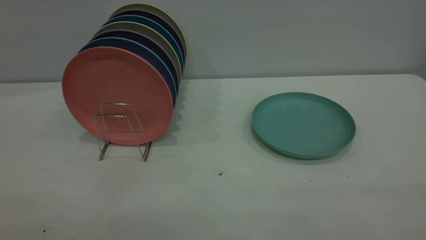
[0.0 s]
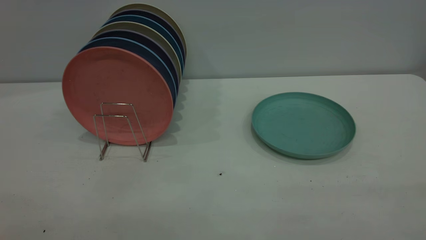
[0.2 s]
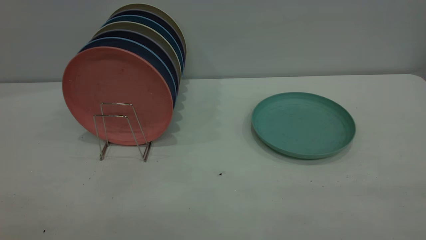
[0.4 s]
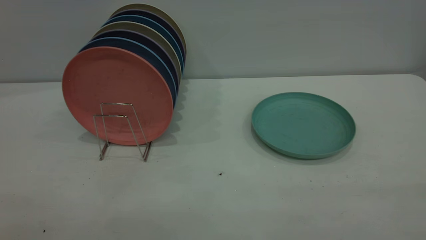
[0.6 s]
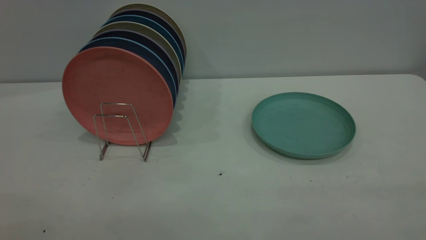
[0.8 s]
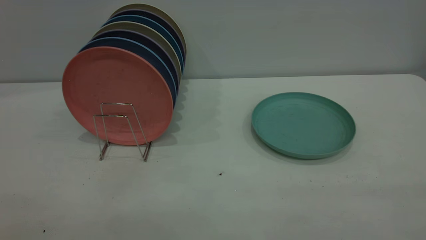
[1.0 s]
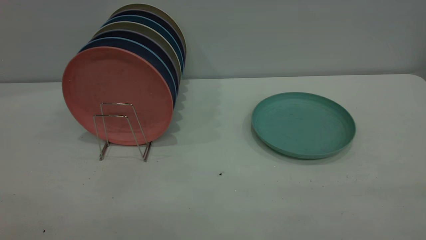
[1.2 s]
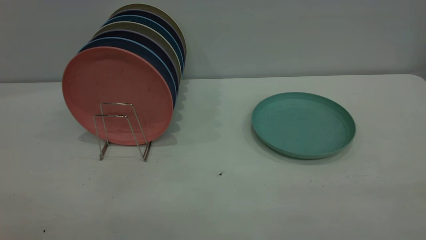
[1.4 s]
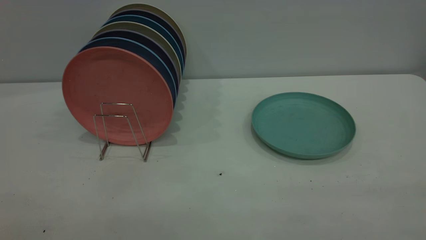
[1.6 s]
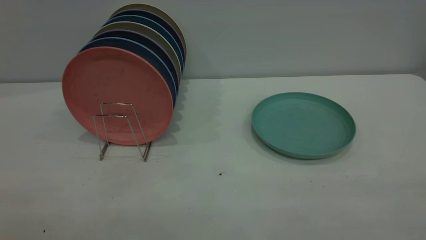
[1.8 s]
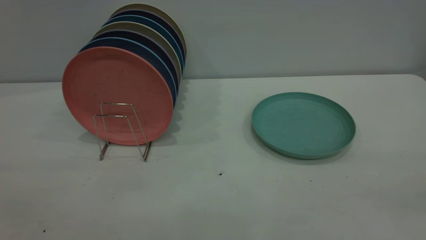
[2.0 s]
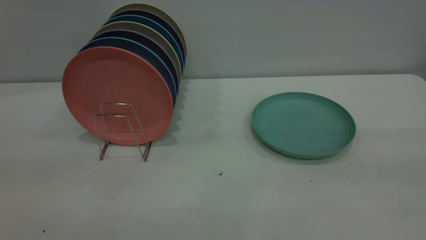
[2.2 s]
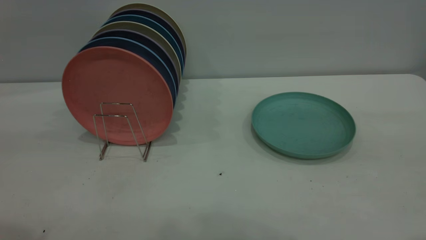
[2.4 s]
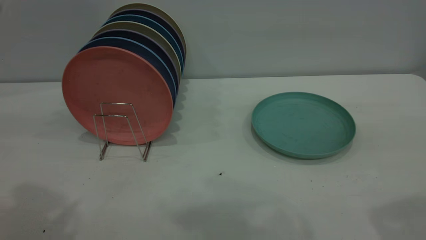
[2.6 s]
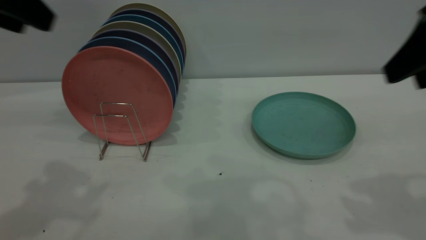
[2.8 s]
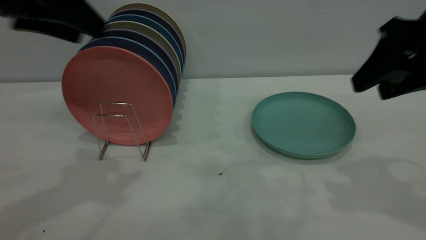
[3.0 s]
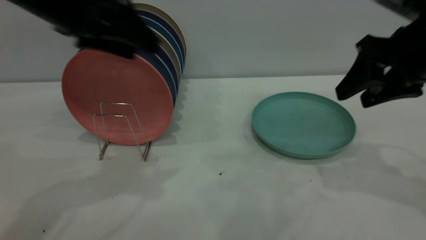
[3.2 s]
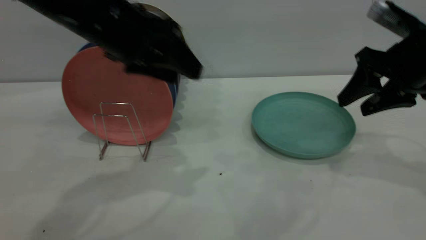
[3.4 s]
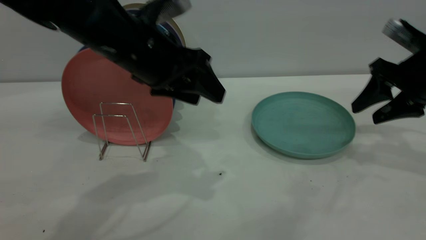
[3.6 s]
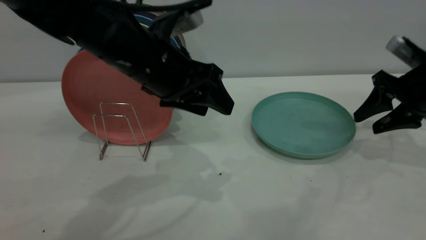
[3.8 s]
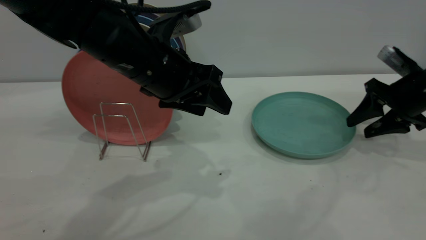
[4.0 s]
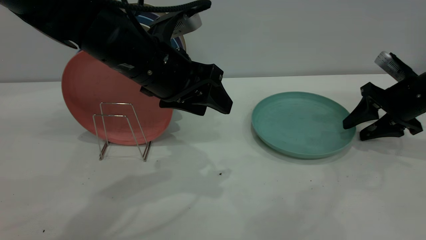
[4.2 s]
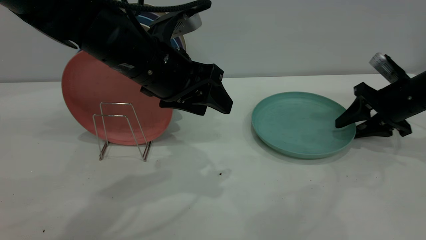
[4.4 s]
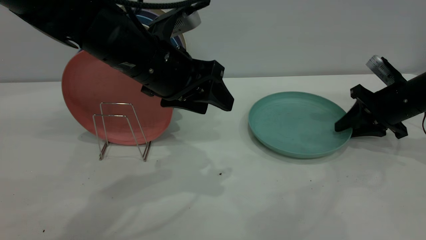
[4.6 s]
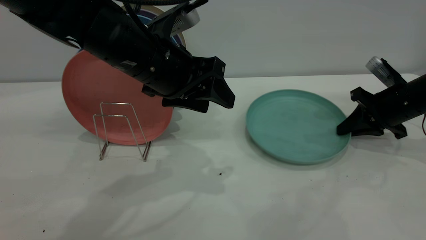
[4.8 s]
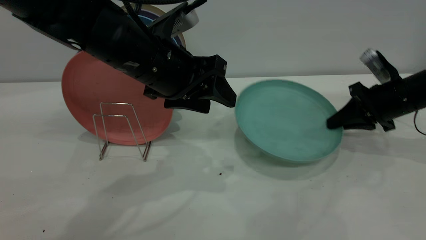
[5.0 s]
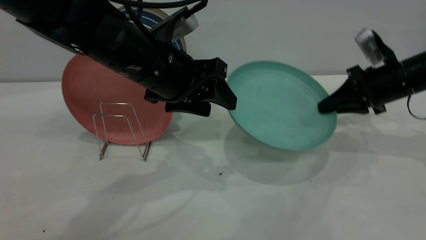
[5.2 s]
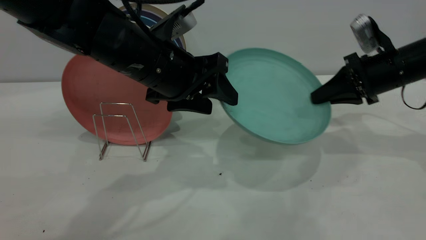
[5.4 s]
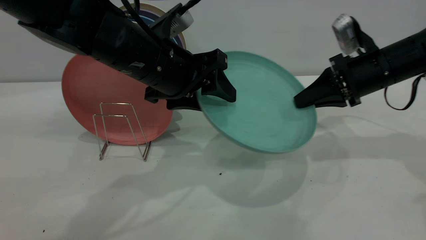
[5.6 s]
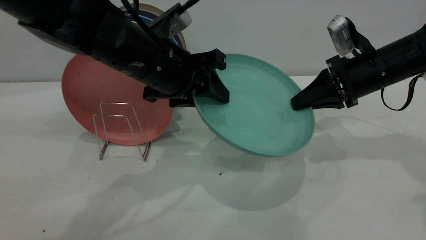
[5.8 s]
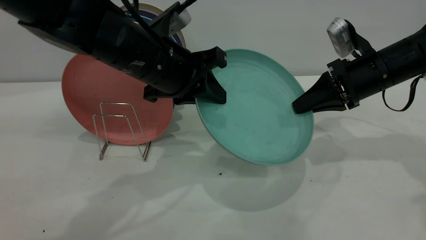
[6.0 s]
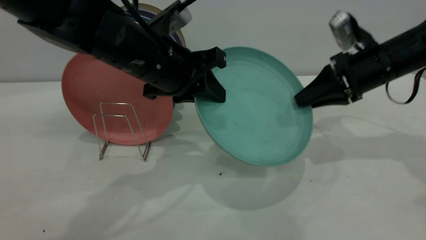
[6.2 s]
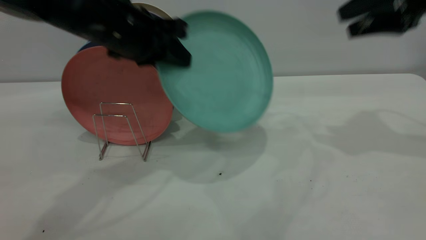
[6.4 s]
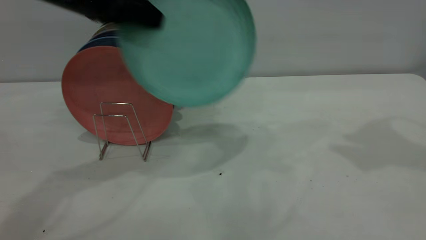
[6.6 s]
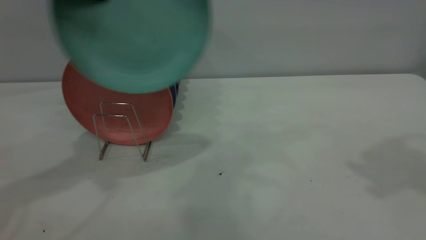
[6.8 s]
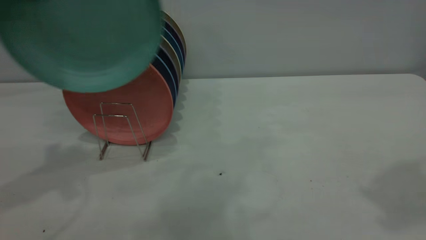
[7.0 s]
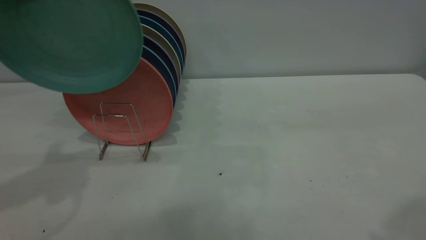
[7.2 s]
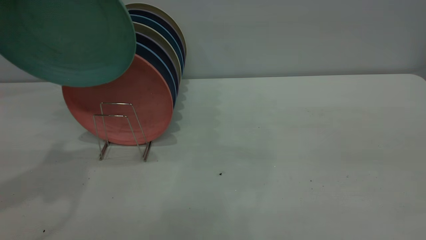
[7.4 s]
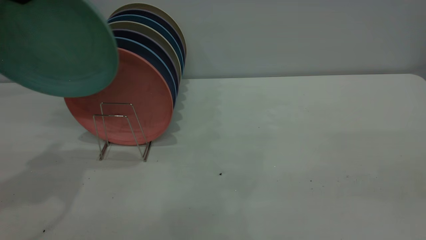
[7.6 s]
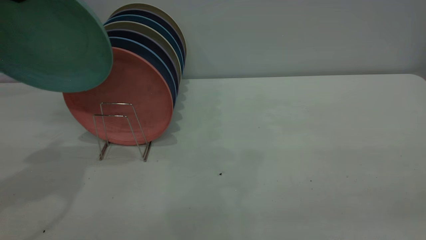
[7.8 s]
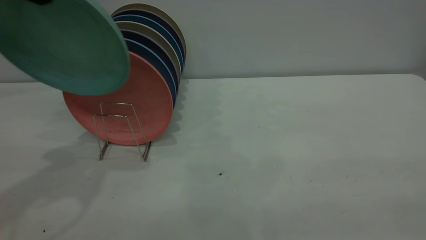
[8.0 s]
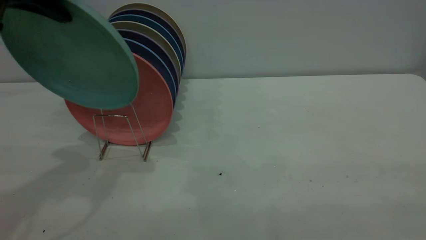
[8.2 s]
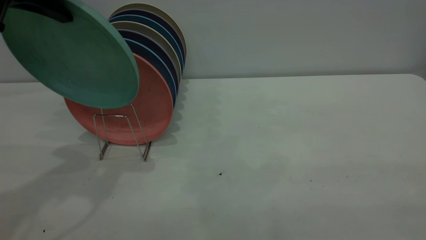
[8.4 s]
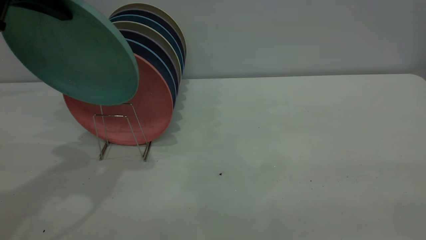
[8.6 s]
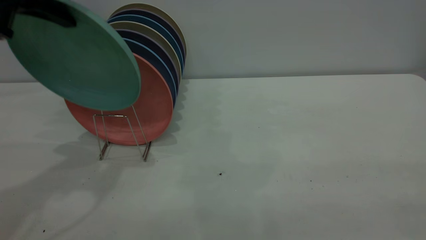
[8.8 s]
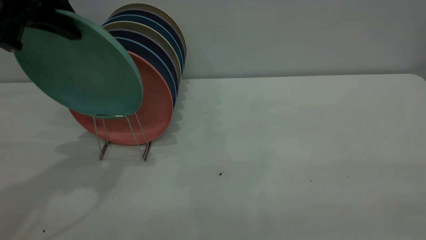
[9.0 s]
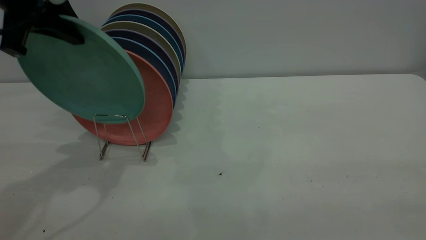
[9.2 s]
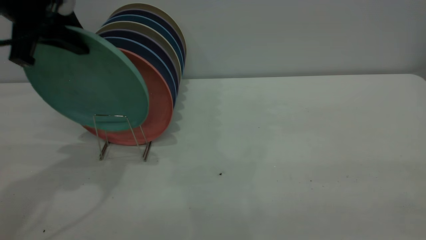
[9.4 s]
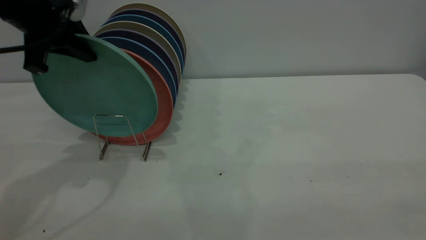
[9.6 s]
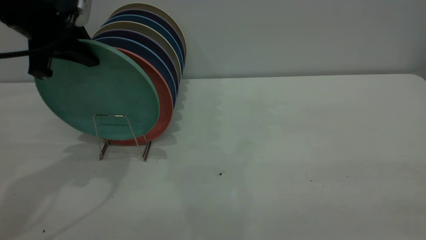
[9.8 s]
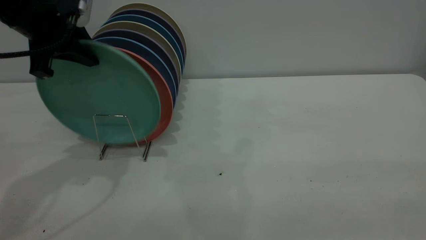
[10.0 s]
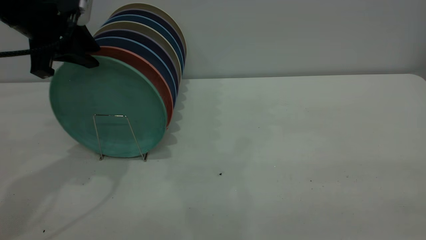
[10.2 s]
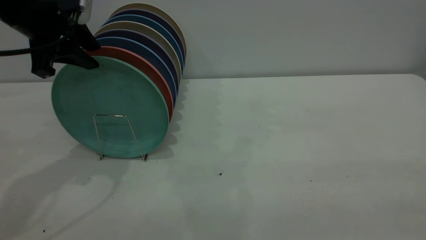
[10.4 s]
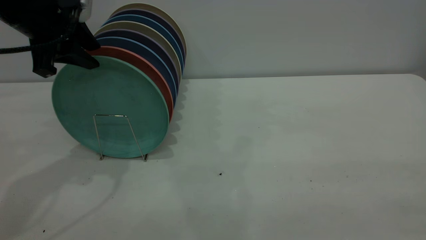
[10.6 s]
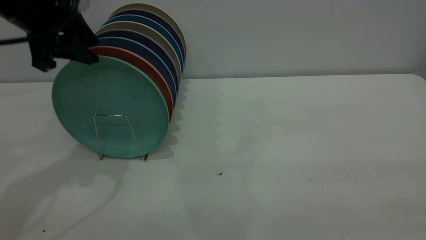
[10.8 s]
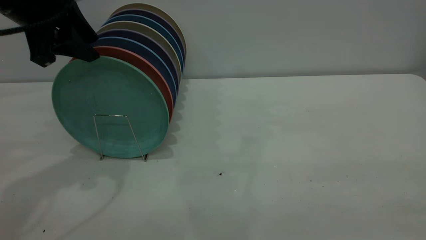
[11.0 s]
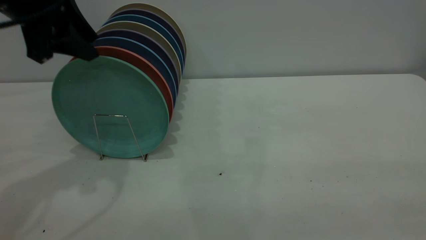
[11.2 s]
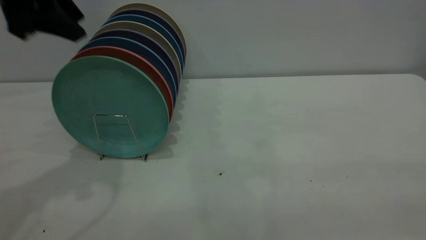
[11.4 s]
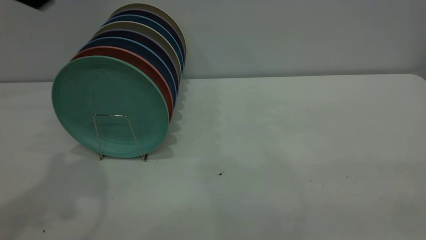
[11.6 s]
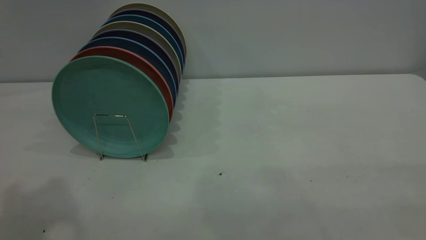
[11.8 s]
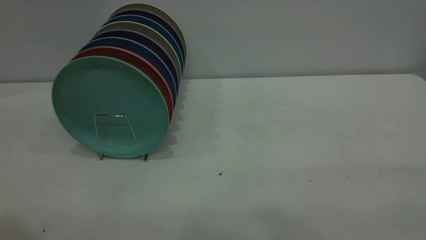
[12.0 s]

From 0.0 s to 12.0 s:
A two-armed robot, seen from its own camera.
Task of the whole recording: the right gripper grasp the green plate, the right gripper pass the green plate to the left gripper, and the left gripper place the green plate on the plate rack.
Step, from 0.0 s to 4.8 s: Pick up the plate with the right gripper.
Step, from 5.0 s to 6.2 s: Pass the plate from the right gripper to the left gripper.
Step, from 6.4 s to 11.2 s: Place the plate on the shelf.
From 0.0 s to 1.6 s: The two grippers keep their place.
From 1.6 s to 3.0 s: The grippers both shift forward by some 35 cm.
From 3.0 s to 4.4 s: The right gripper travels downward and forward by approximately 20 cm; the left gripper goes about 15 cm to the right and downward.
From 4.4 s to 6.0 s: The right gripper travels to the left and upward by approximately 10 cm, and closes. The left gripper closes.
From 6.0 s to 7.6 s: The right gripper goes some 40 cm backward and upward, and opens. The left gripper is displaced to the left and upward by roughly 25 cm.
From 7.6 s to 9.0 s: The left gripper is displaced to the right by roughly 5 cm.
From 9.0 s to 10.4 s: The left gripper ends up some 5 cm from where it was, and opens.
From 10.4 s to 12.0 s: The left gripper heads backward and upward, covering some 30 cm.

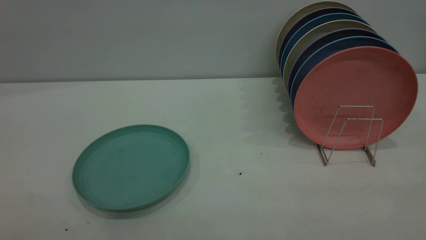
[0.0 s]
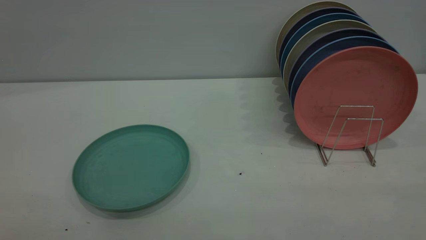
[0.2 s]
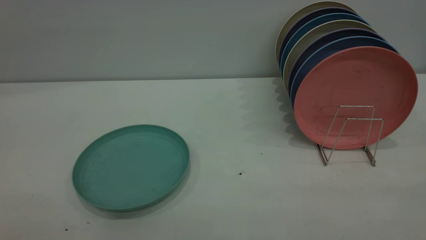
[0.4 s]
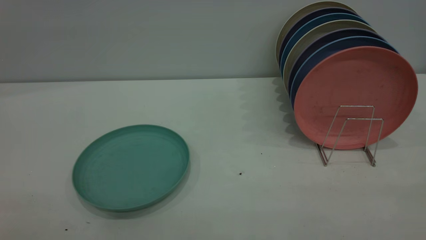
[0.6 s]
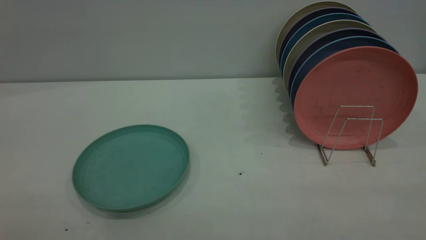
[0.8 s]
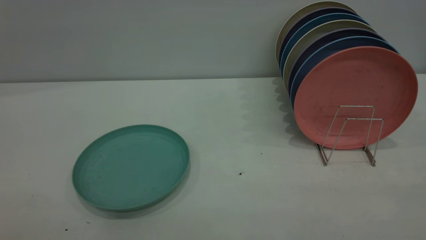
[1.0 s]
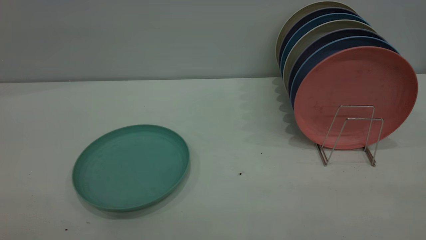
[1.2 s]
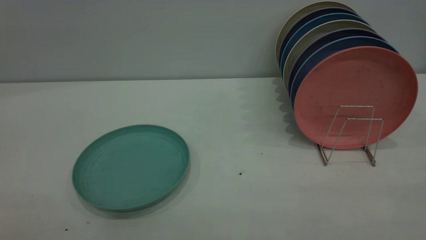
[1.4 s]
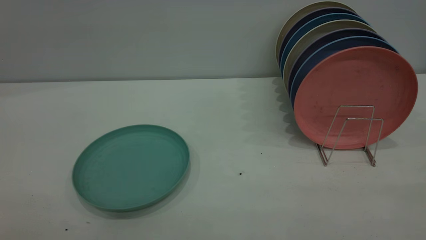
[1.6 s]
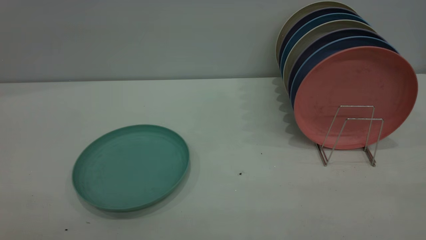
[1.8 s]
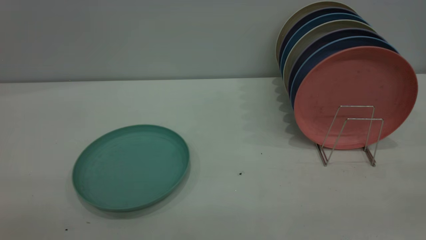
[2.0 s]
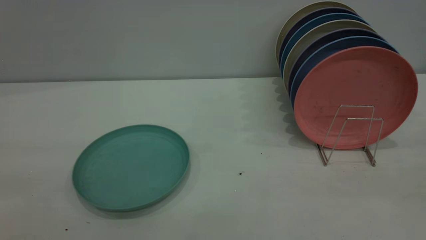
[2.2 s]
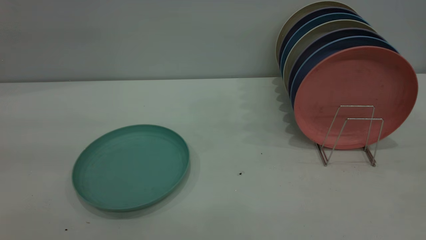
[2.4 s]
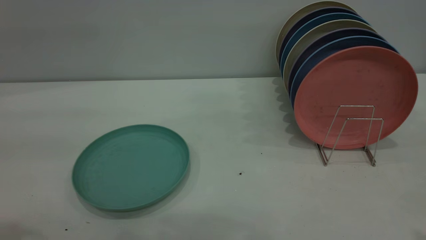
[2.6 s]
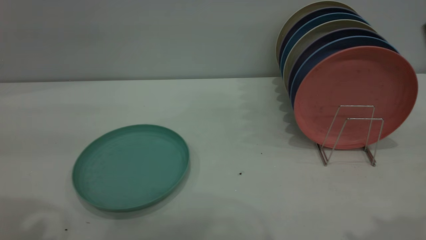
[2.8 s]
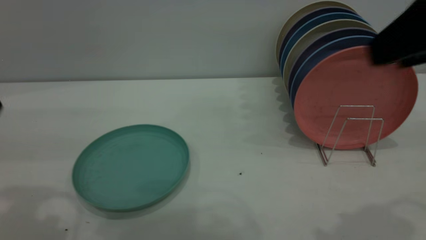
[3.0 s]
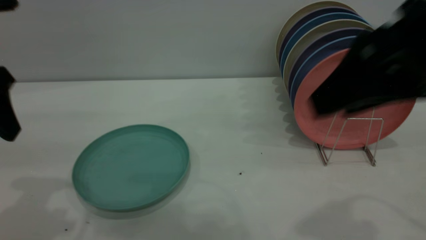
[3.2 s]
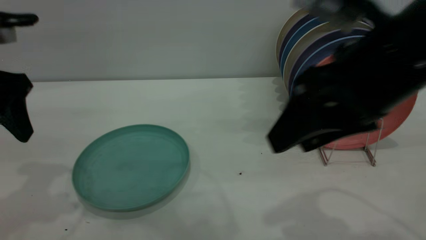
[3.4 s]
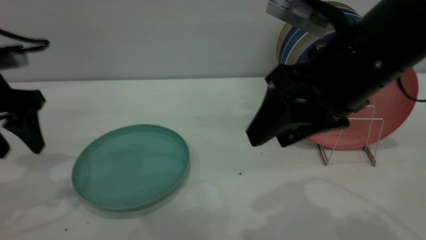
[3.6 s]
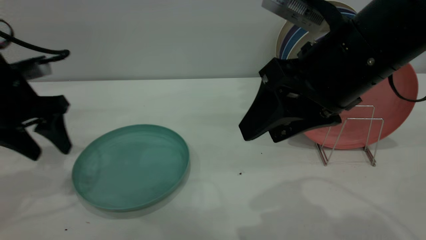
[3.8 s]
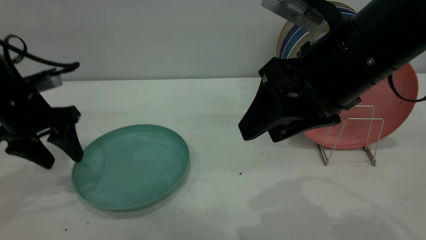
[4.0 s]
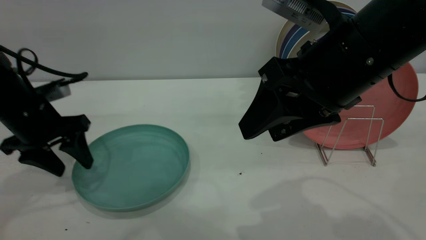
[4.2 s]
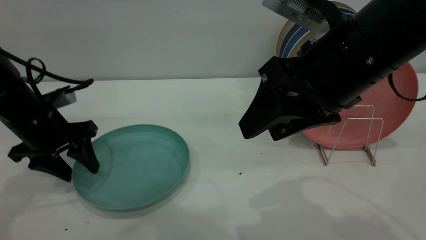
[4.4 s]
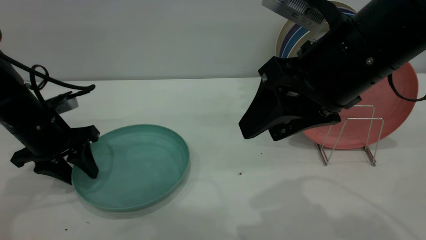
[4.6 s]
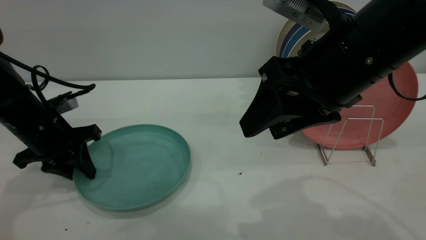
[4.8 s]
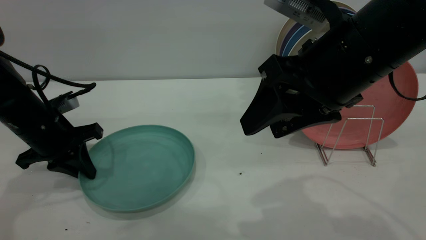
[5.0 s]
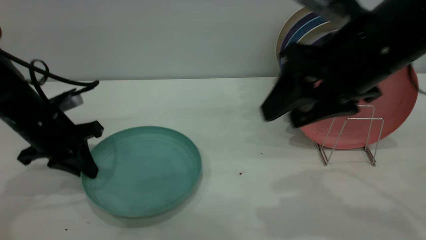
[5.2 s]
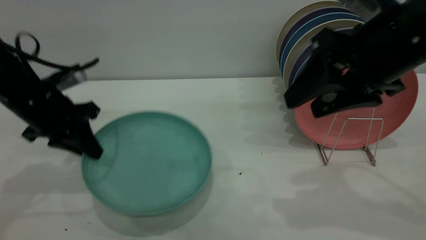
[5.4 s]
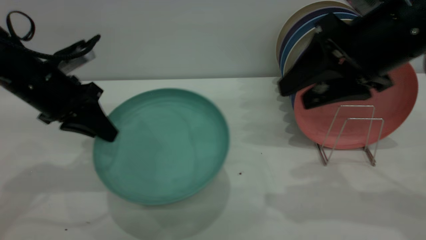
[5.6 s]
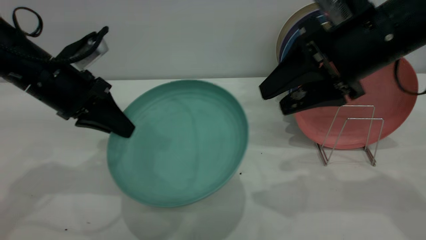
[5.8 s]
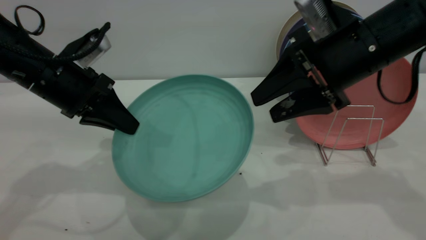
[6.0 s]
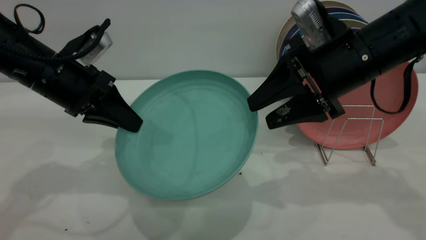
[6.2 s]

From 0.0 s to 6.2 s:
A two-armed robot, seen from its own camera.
Task of the whole recording: the left gripper grasp the green plate, the left gripper pass the green plate to the right gripper, and the right gripper place the green plate on the plate rack.
Step, from 0.0 s to 5.4 s: Pick up the plate with the left gripper.
From 0.0 s to 1.6 s: Both grippers stay about where they are.
From 1.6 s to 3.2 s: The right gripper moves forward and to the left, approximately 25 cm, and opens up. The left gripper moves forward, approximately 30 cm.
From 3.2 s to 4.6 s: The right gripper heads to the left, covering some 5 cm. The left gripper moves downward and forward, about 20 cm.
From 4.6 s to 6.2 s: The left gripper moves upward and to the right, approximately 10 cm, and closes its fingers. Meanwhile the right gripper shifts about 10 cm forward.
